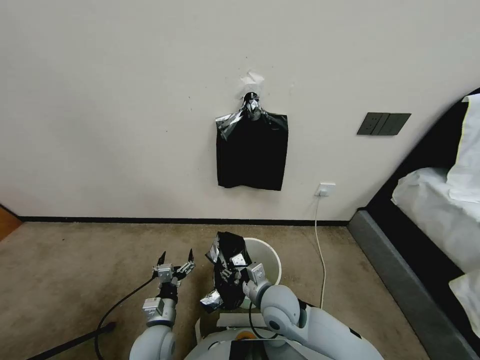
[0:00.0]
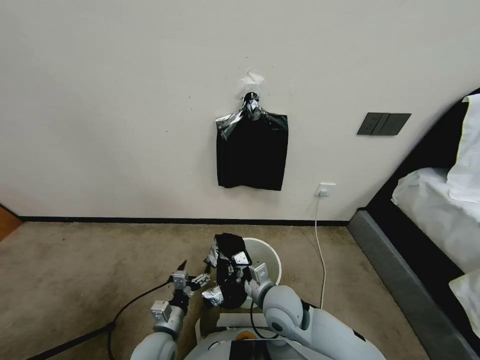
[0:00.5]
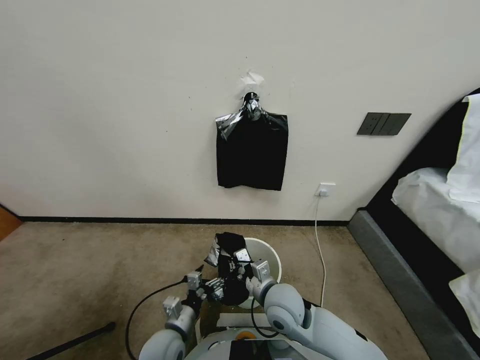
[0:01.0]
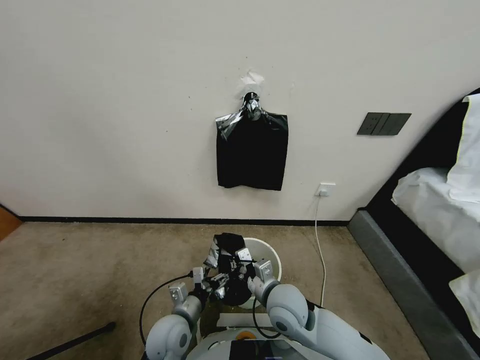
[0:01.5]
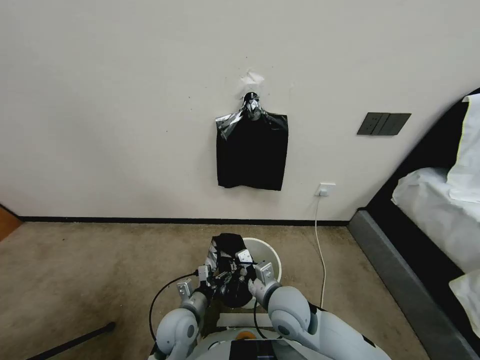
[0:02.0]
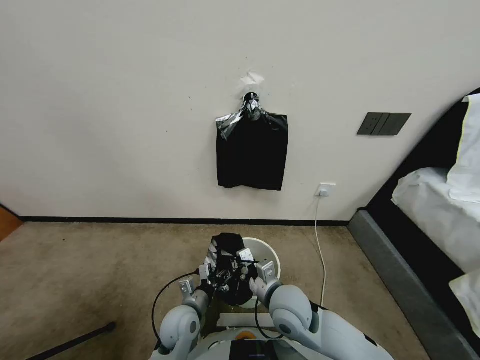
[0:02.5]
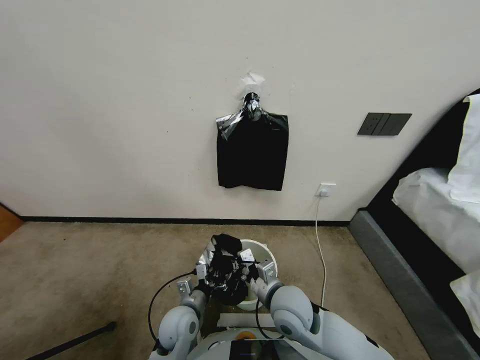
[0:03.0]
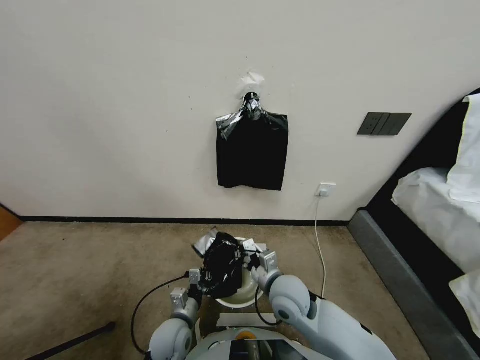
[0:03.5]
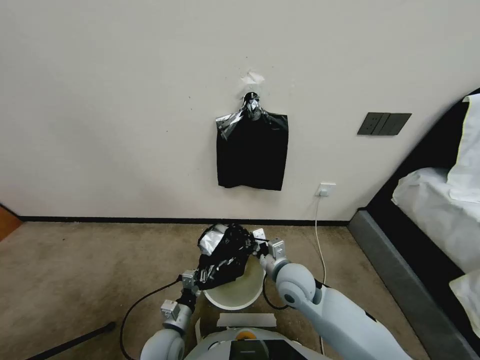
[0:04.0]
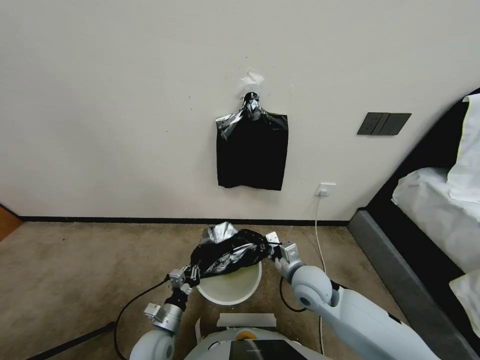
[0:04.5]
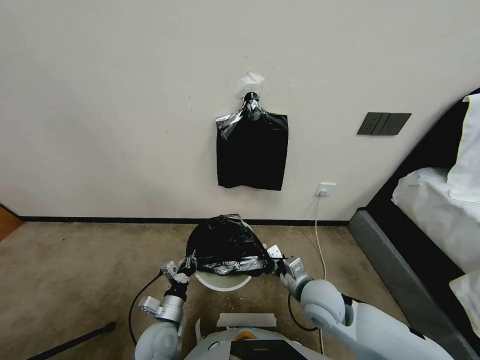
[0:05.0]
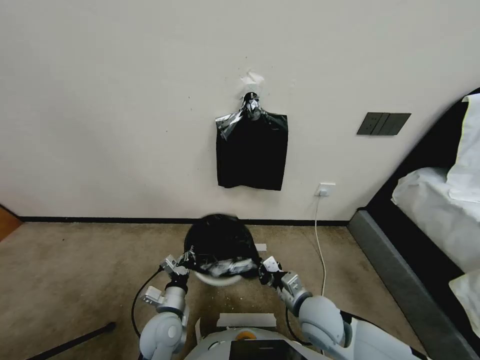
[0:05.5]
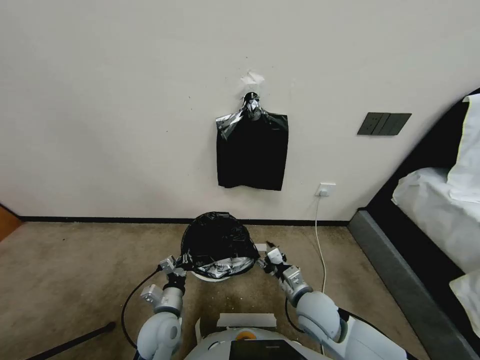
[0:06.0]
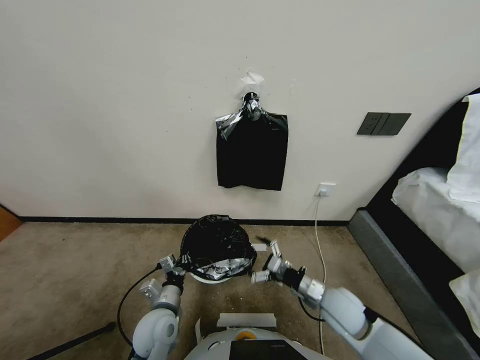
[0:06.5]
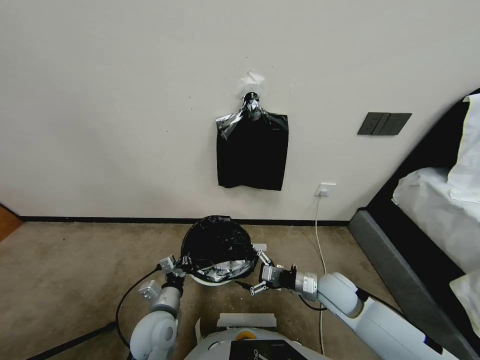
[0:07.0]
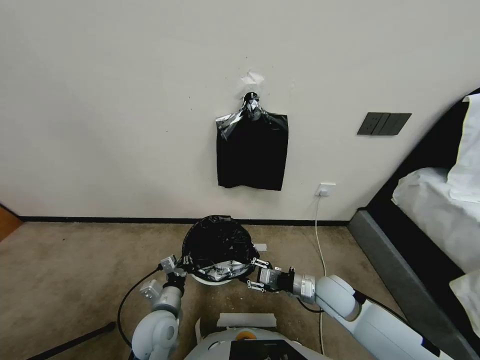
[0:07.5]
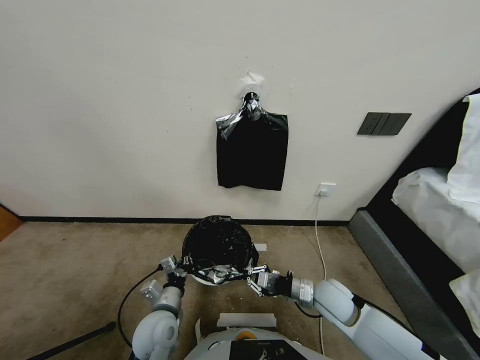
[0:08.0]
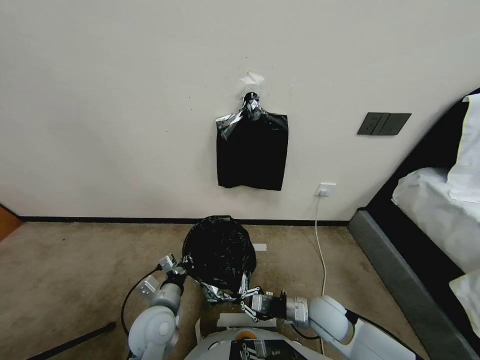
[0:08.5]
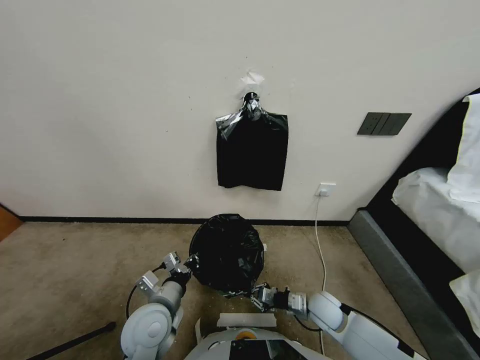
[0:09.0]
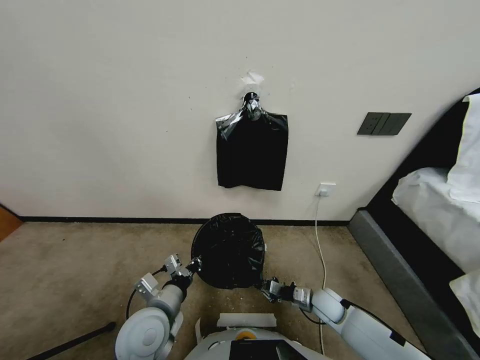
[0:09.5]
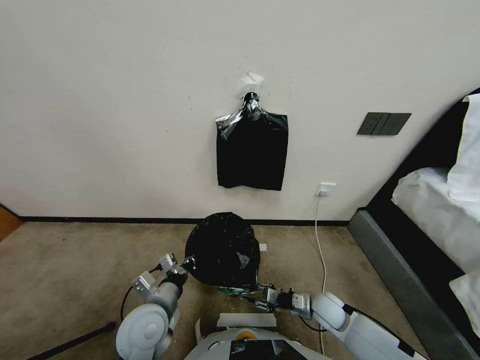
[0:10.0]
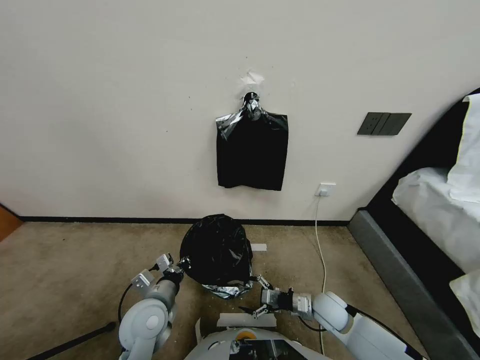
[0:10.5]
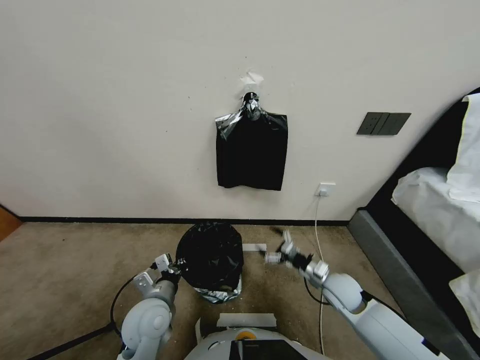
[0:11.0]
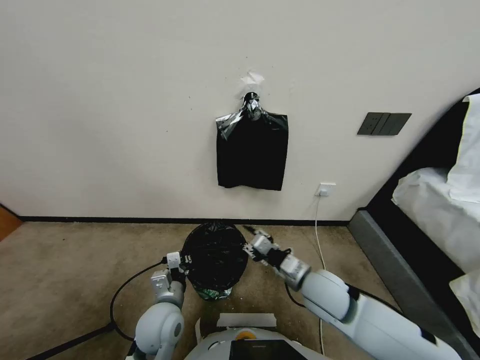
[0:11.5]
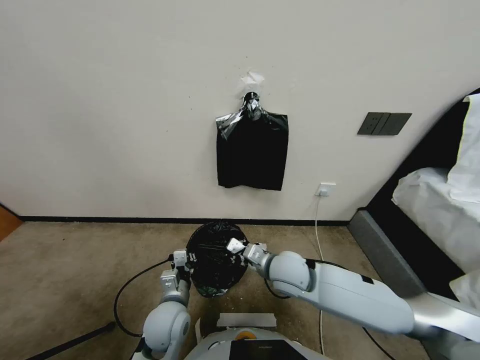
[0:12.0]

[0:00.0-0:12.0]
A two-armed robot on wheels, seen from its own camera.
Task of the whole recording: Place a trash bag onto the trash bin.
0:00.0 to 0:02.0: The left gripper heads to the right, covering some 5 cm.
0:02.0 to 0:04.0: The right gripper travels forward by approximately 5 cm. The left gripper moves approximately 5 cm, and closes its fingers.
0:04.0 to 0:06.0: The right gripper heads backward and to the right, covering roughly 10 cm, and opens, while the left gripper heads upward, covering approximately 5 cm.
0:06.0 to 0:08.0: The right gripper closes its fingers.
0:08.0 to 0:10.0: The right gripper travels downward by roughly 10 cm, and opens up; the left gripper is displaced upward by approximately 5 cm.
0:10.0 to 0:12.0: The right gripper travels to the left and upward by about 25 cm, and closes. Meanwhile the left gripper changes place by approximately 5 cm.

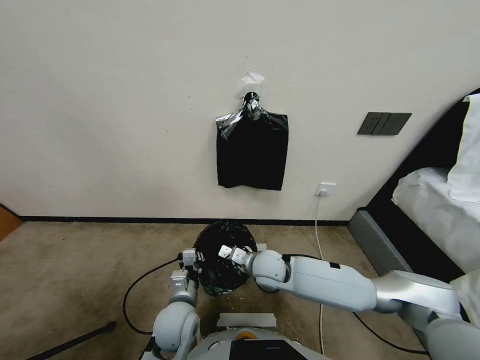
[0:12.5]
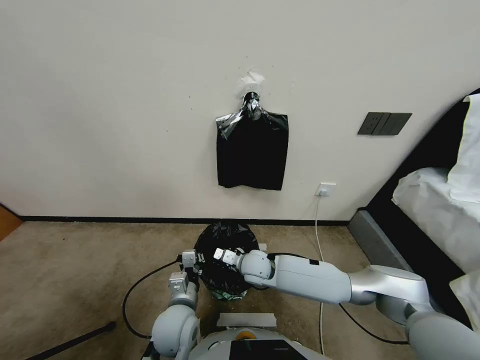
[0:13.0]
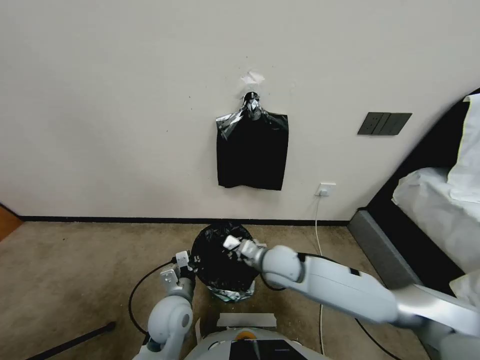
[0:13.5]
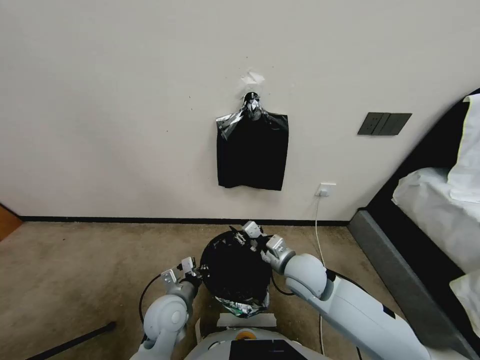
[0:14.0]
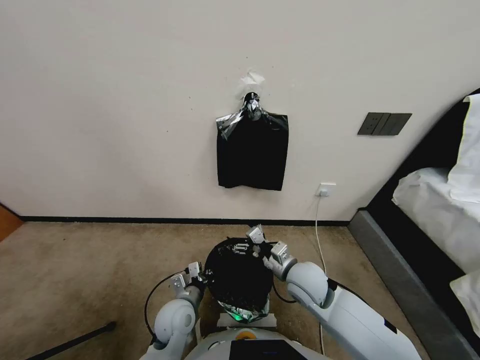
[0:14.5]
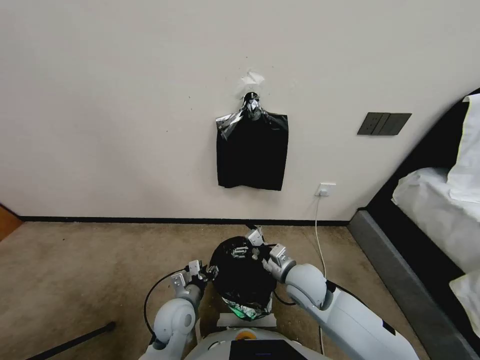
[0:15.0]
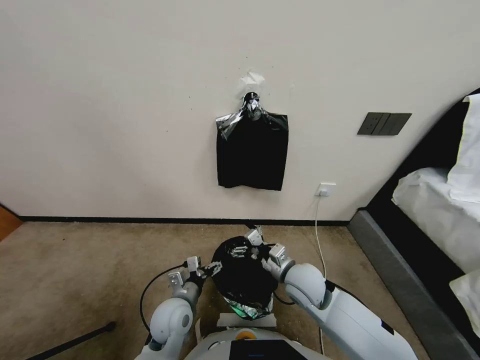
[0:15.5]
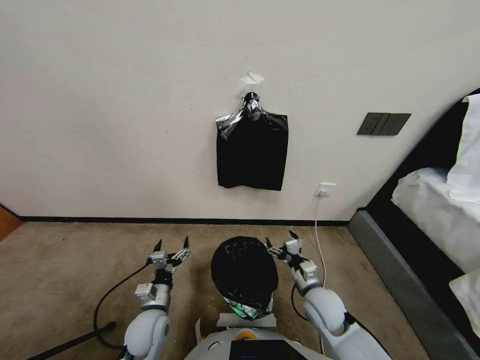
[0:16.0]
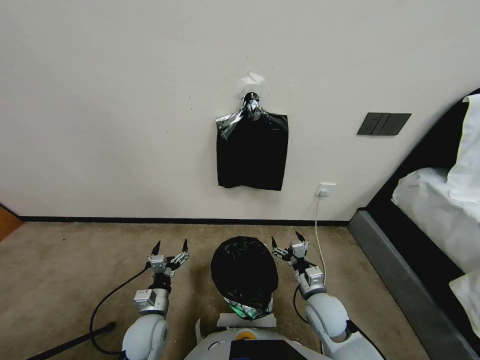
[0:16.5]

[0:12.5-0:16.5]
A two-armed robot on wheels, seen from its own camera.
Task of the whole recording: Place a trash bag onto the trash bin.
0:12.5 to 0:14.5: The right gripper moves to the right and backward, approximately 10 cm, and opens up.
0:14.5 to 0:16.5: The right gripper goes approximately 10 cm downward and to the right; the left gripper travels to the left by approximately 10 cm, and opens.
